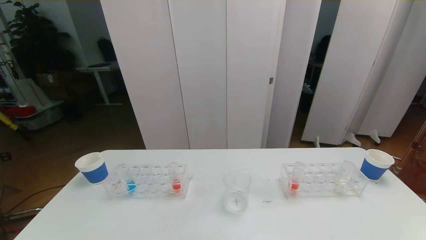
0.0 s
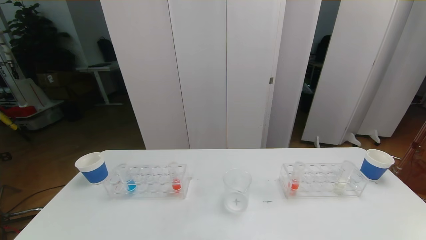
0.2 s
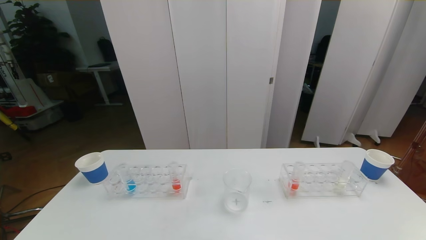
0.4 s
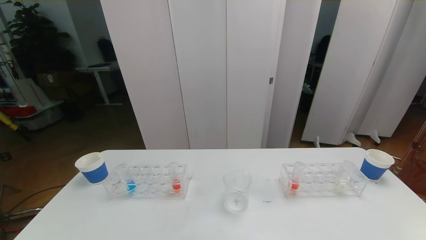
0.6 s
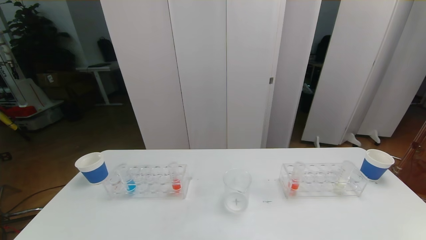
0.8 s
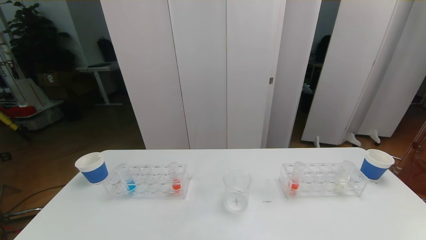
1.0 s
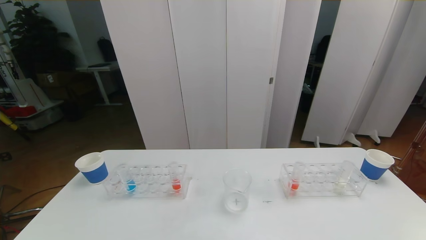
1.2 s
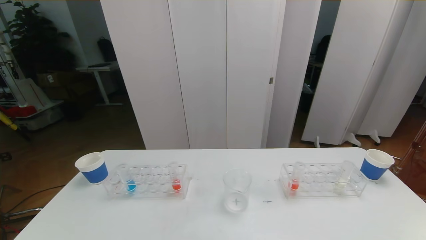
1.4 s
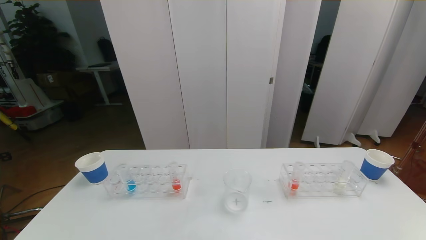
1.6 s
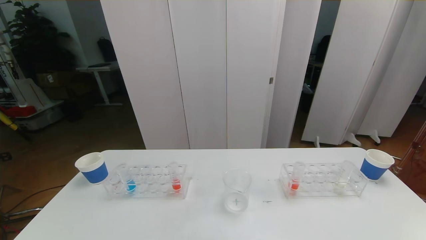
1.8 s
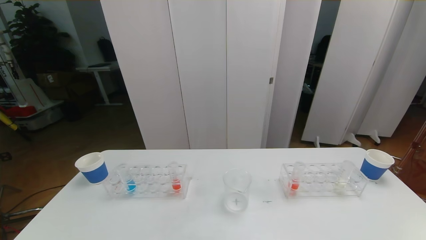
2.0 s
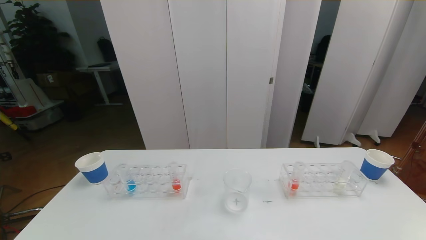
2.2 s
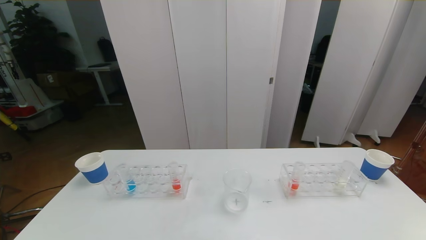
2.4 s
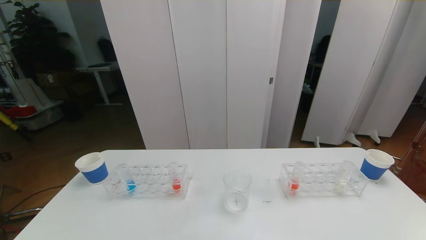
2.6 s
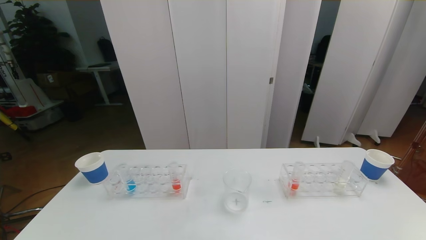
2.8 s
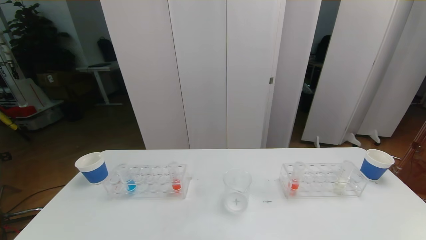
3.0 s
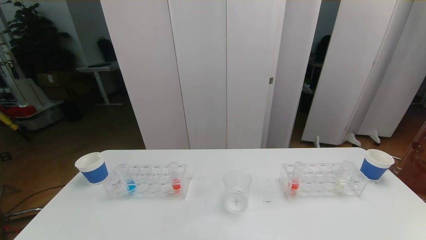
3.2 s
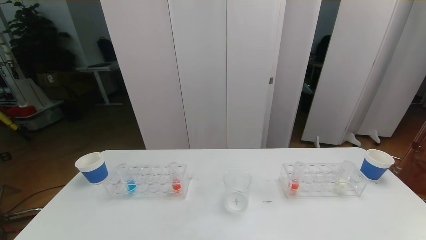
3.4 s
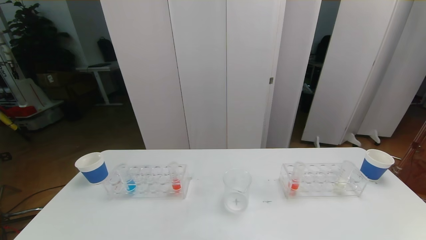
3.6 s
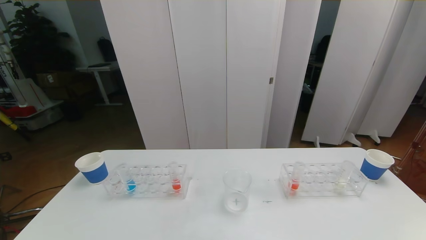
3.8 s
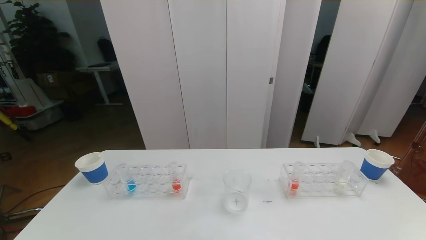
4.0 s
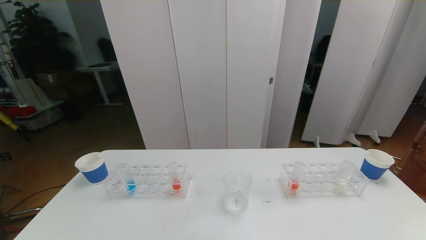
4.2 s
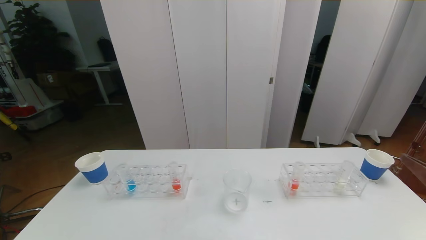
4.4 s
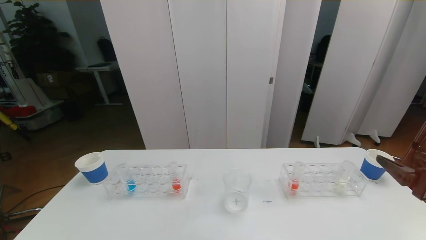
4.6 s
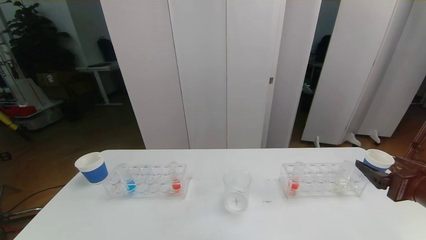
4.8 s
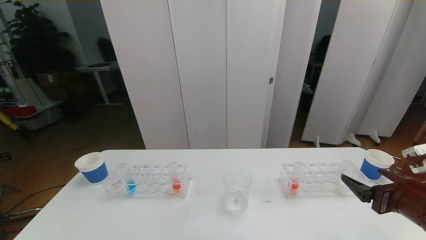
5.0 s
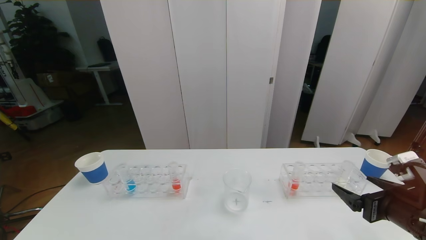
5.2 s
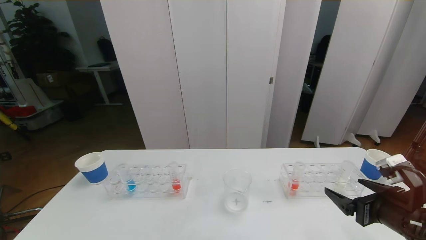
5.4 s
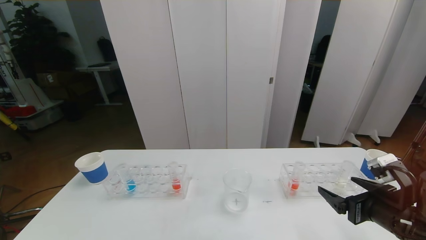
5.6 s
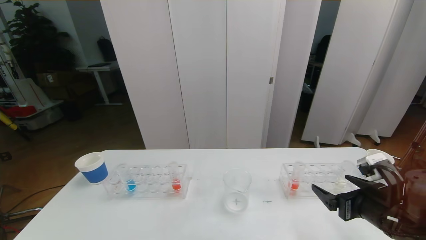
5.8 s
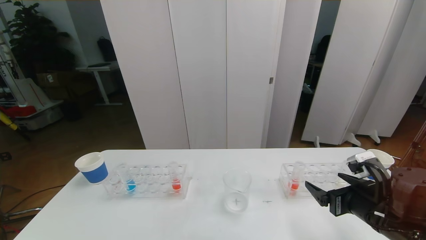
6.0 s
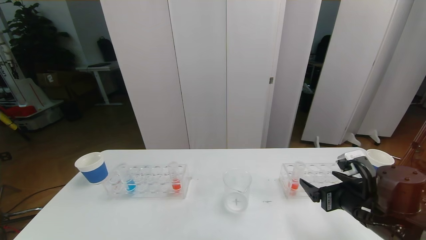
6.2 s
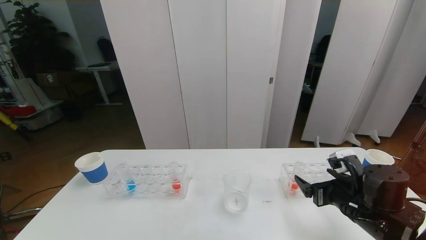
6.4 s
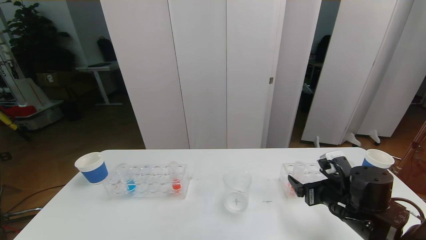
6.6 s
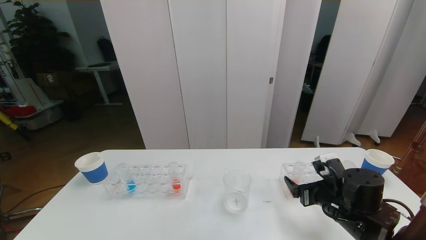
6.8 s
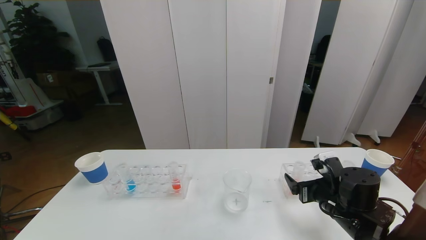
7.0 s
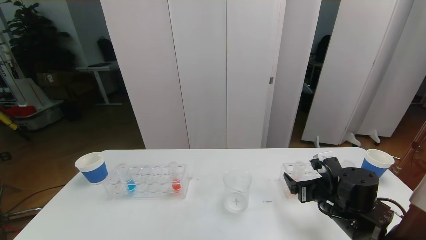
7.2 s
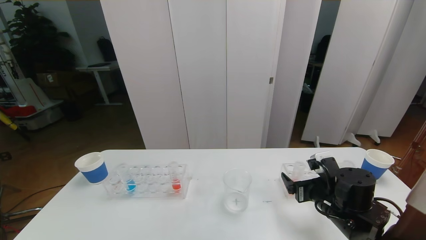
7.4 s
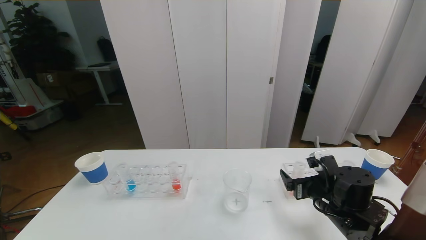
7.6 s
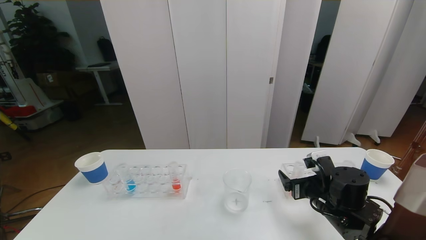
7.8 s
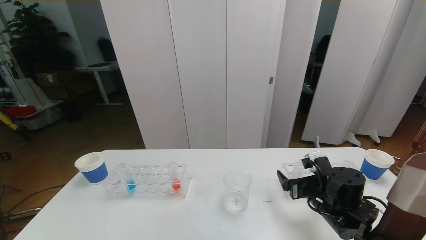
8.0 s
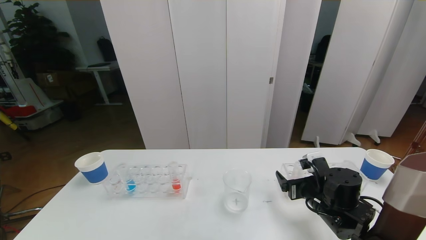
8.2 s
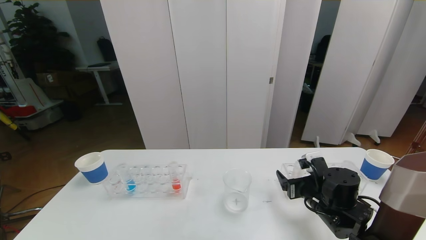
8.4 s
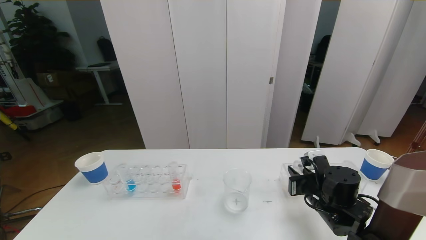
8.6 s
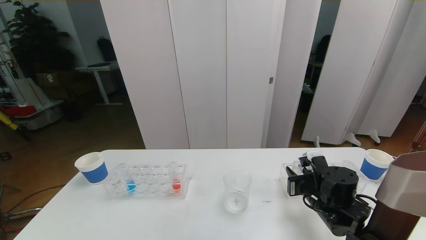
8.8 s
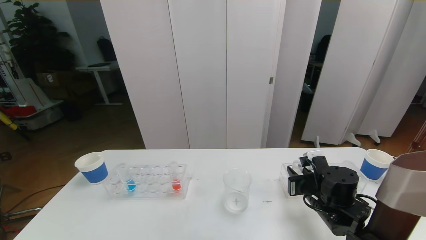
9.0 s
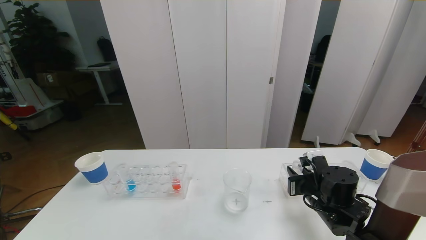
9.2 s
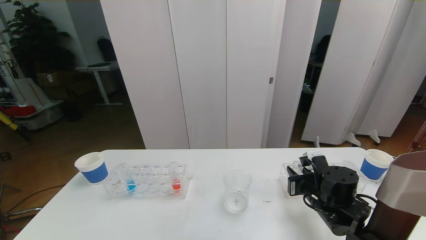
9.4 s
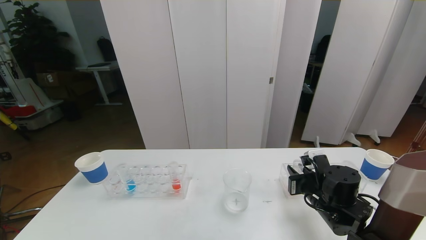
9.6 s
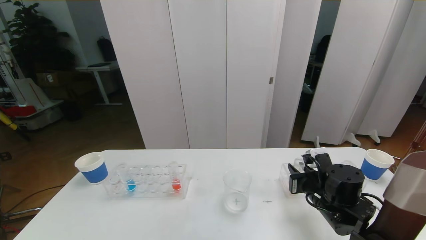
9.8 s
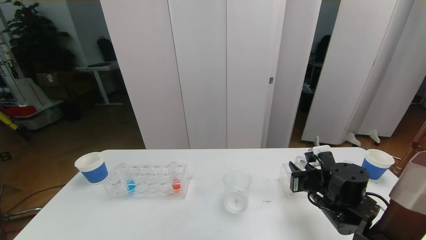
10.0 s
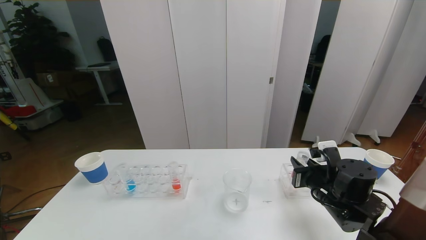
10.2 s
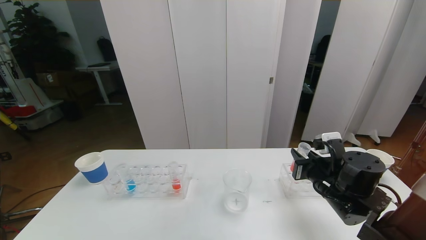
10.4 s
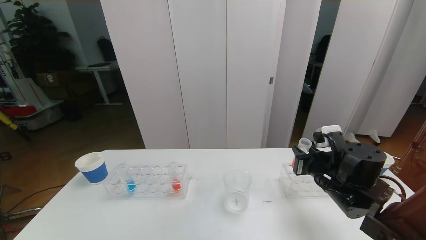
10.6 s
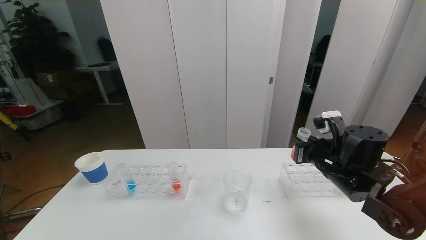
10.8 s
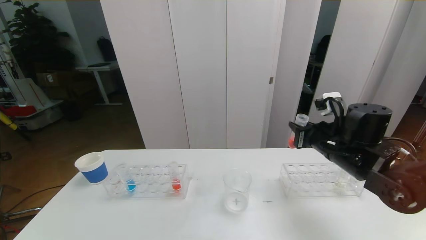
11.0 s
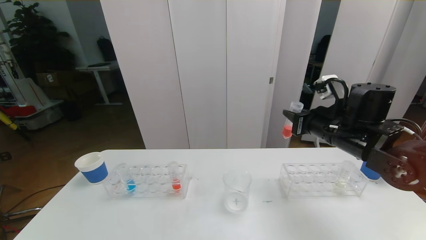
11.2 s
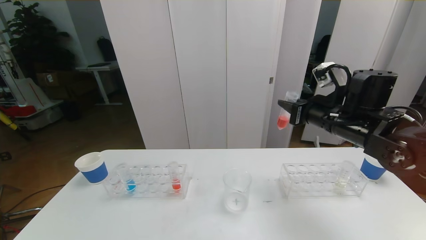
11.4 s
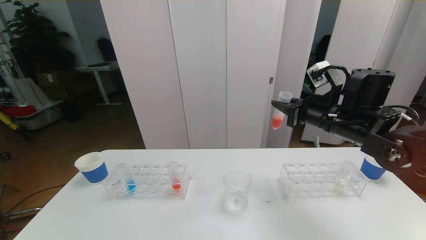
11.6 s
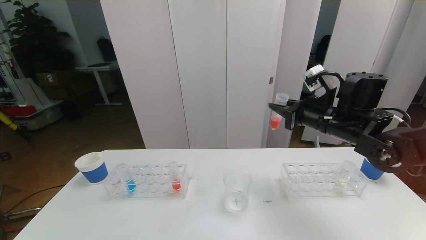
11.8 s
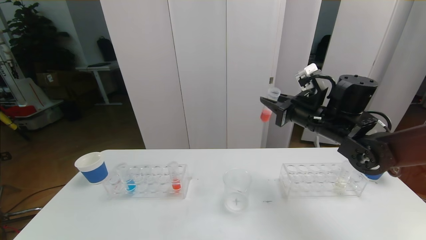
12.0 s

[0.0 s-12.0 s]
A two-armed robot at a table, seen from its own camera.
Task of the whole recording: pick up the test tube with red pigment the test tube with blue pigment and the test tube with white pigment by grippers and pour them into the beaker.
0.0 to 1.6 s: The two grippers keep their place.
4.4 to 6.0 s: The right gripper goes some 15 cm downward, forward and to the left.
6.0 to 7.6 s: The right gripper goes some 5 cm forward.
7.6 to 9.0 s: The right gripper closes up.
9.0 to 10.4 s: The right gripper travels upward by some 5 cm.
10.4 to 12.0 s: The right gripper shifts some 15 cm upward and forward.

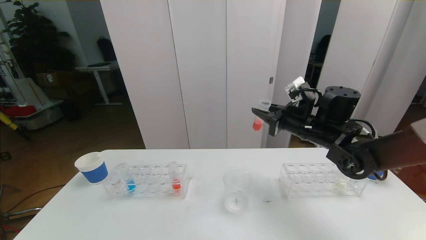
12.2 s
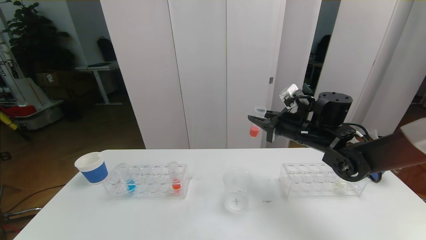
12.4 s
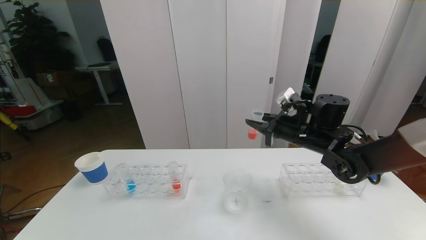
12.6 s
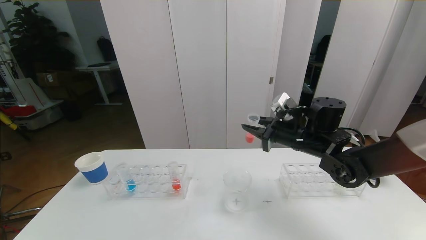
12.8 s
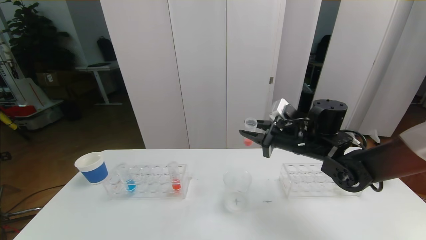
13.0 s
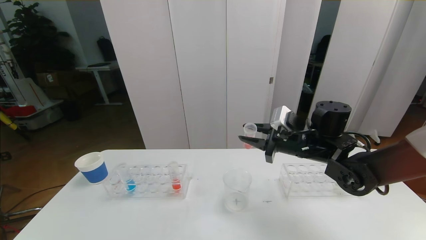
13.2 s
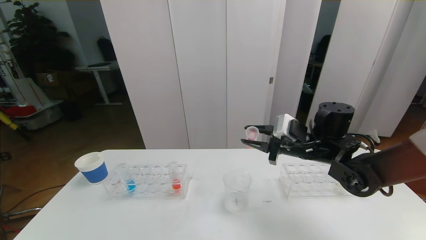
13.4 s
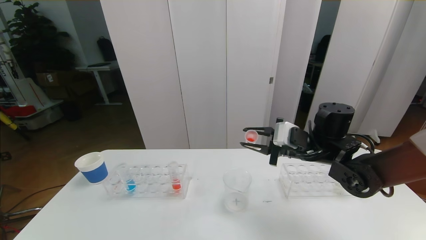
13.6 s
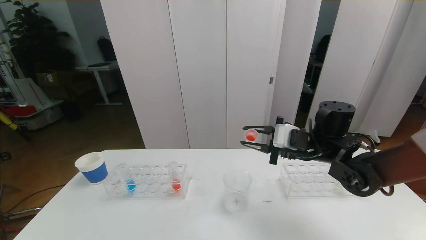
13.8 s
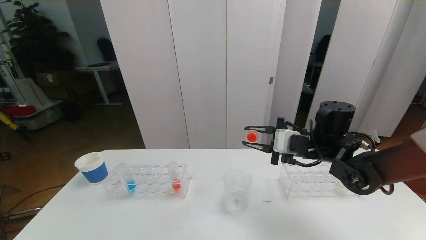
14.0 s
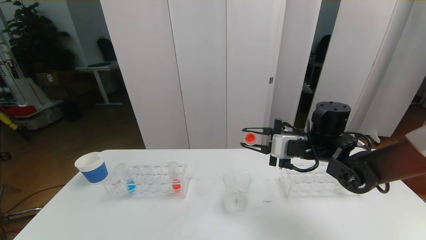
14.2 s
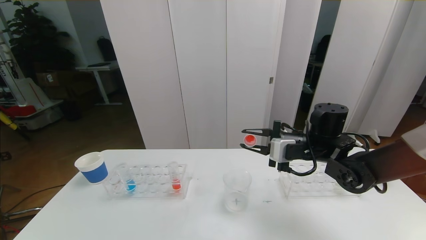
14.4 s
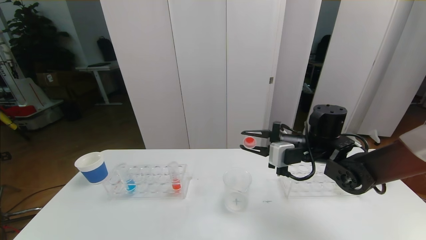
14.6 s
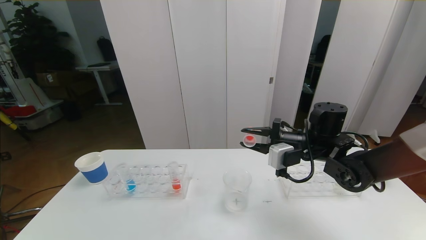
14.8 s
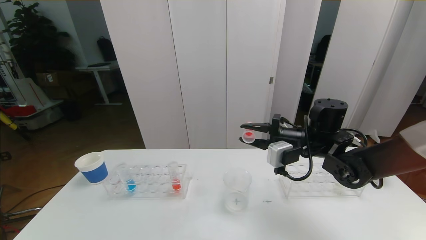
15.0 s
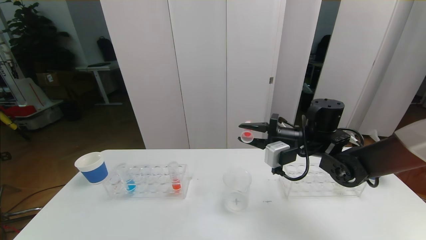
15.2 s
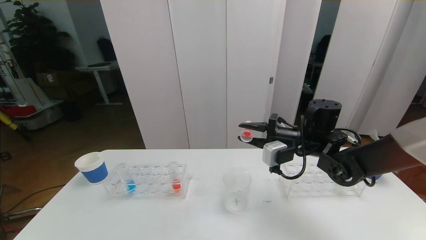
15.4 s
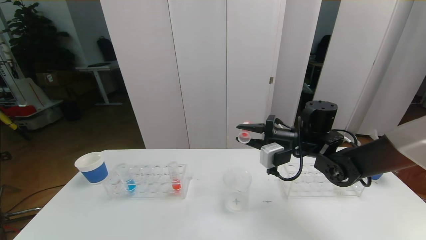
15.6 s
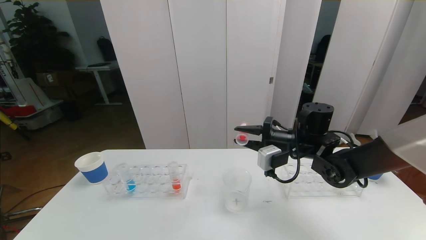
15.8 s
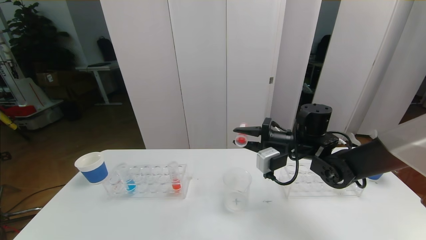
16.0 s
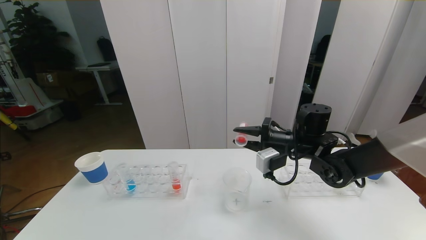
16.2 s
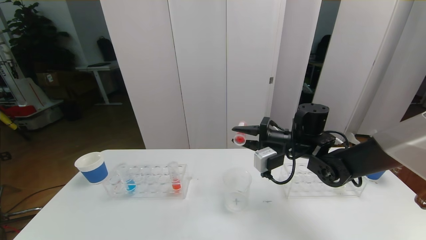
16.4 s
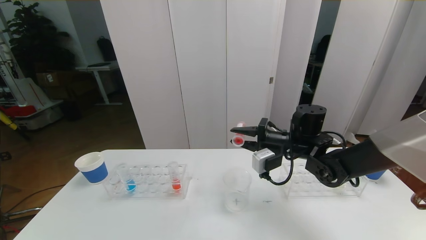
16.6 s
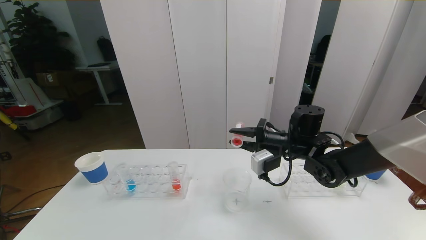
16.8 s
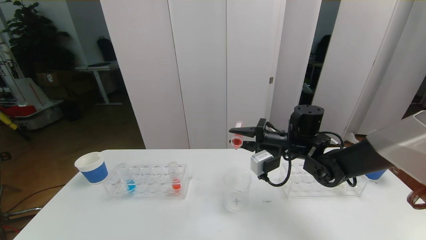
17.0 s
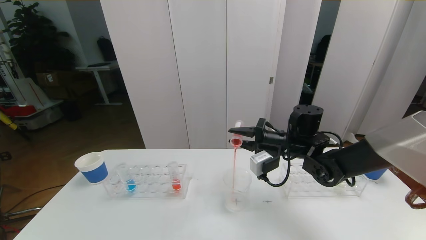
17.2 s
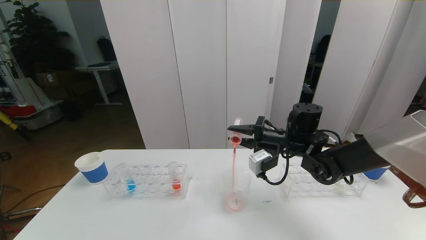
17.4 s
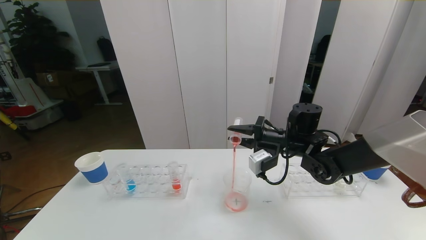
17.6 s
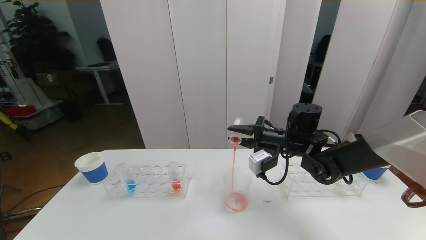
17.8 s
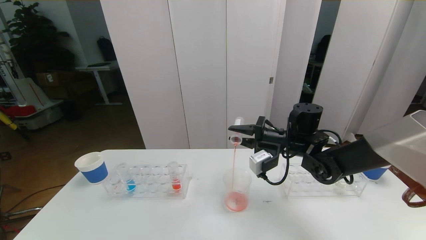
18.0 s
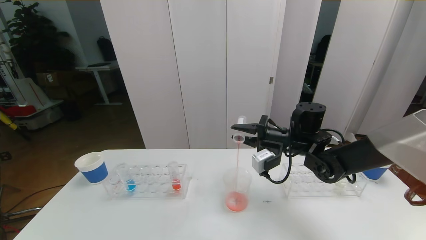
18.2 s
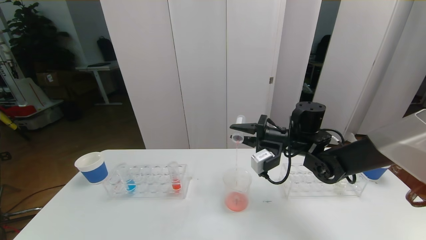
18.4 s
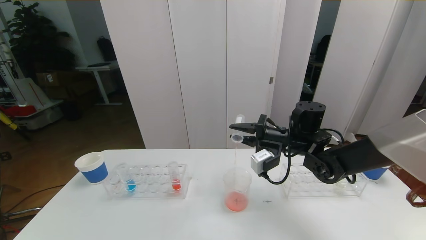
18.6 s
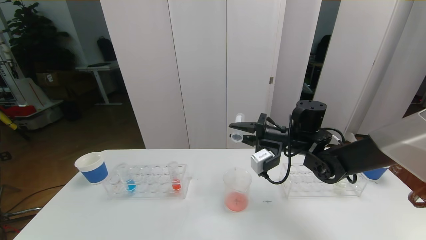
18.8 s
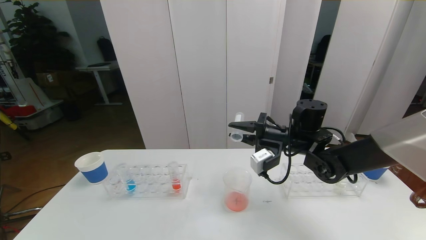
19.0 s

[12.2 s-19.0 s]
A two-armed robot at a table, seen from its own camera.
Task of the whole recording: pick up the test tube with red pigment the test tube with blue pigment and the test tube with white pigment by grippers and pour them into the beaker.
15.0 to 17.6 s: The grippers move only a little.
17.6 to 19.0 s: Both grippers stay about where they are.
